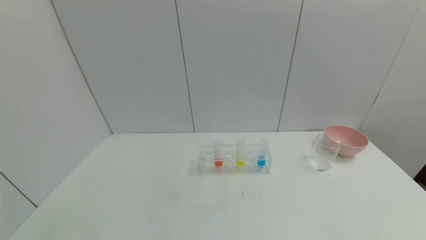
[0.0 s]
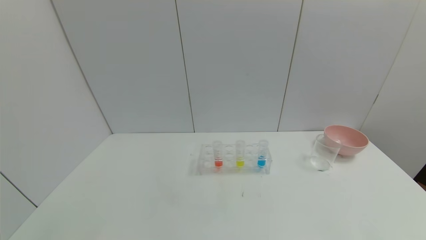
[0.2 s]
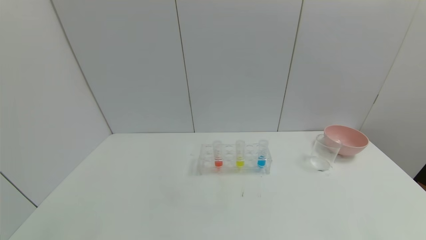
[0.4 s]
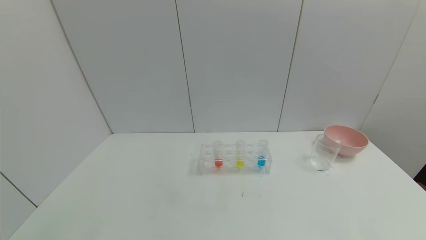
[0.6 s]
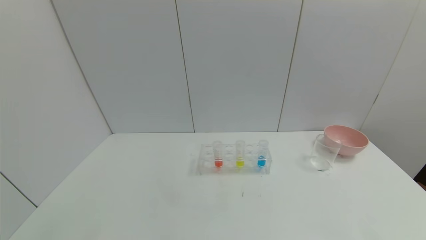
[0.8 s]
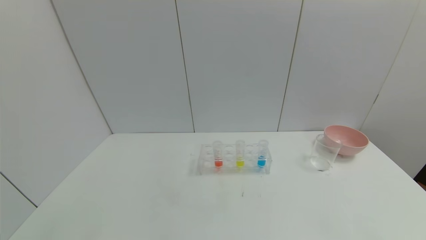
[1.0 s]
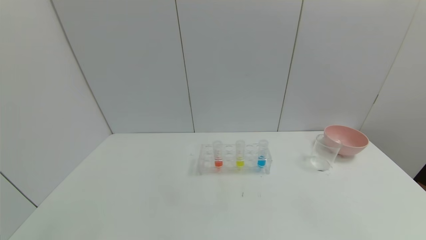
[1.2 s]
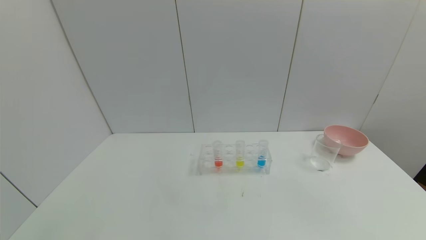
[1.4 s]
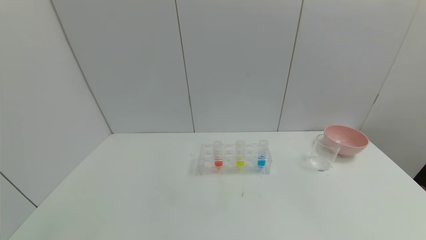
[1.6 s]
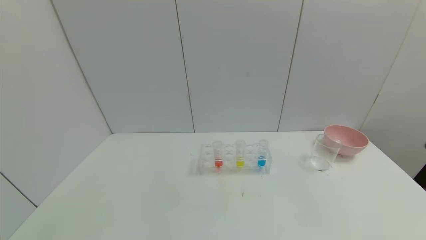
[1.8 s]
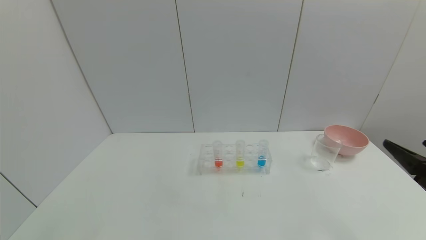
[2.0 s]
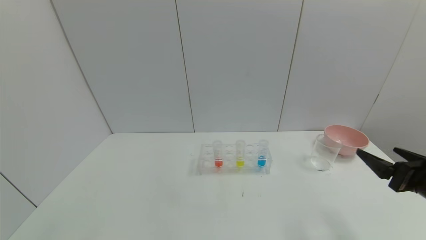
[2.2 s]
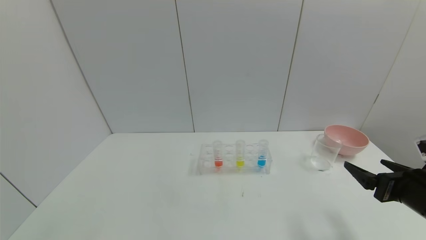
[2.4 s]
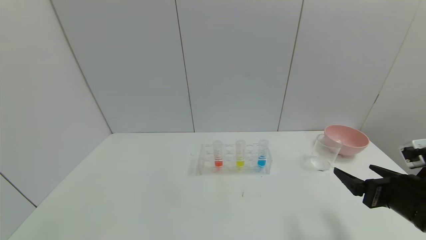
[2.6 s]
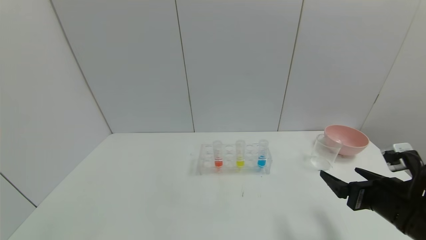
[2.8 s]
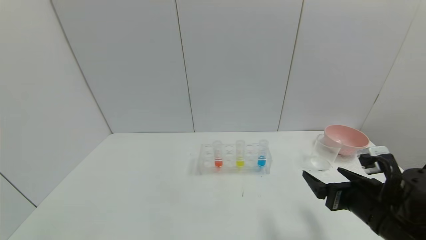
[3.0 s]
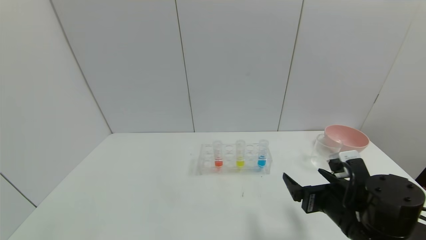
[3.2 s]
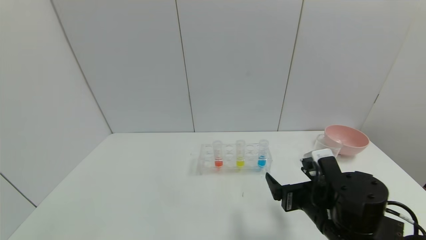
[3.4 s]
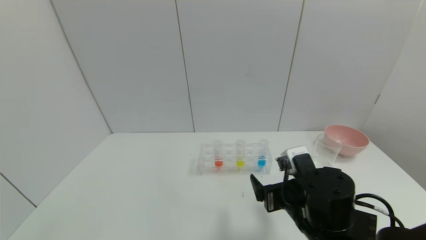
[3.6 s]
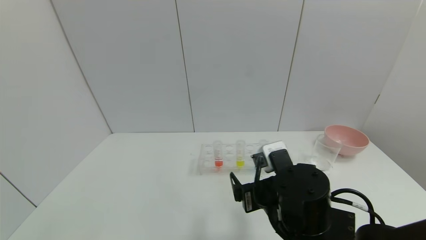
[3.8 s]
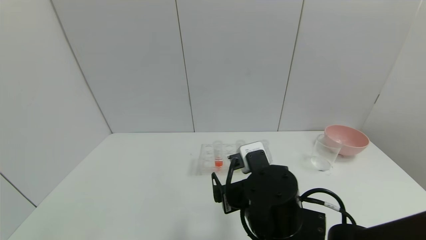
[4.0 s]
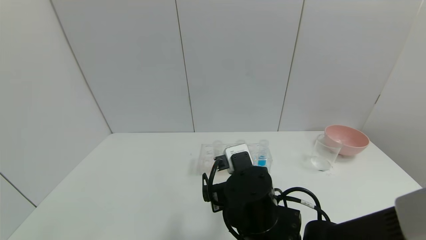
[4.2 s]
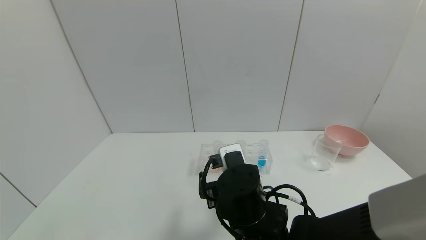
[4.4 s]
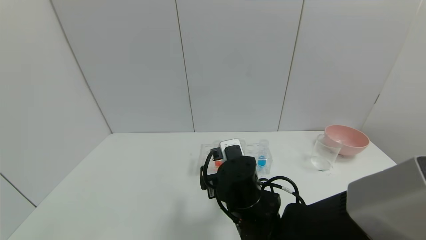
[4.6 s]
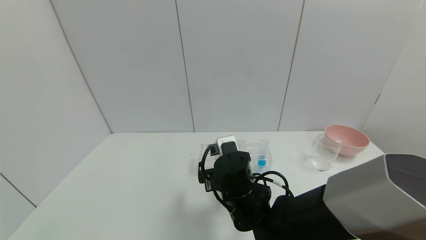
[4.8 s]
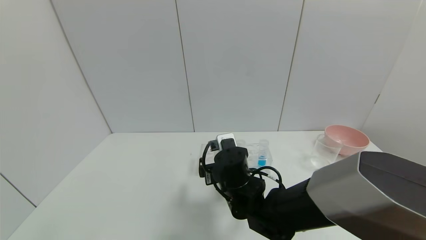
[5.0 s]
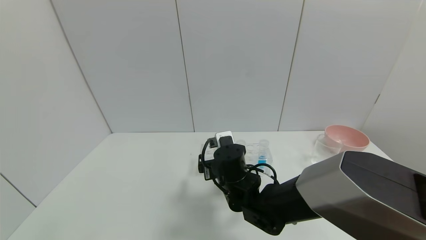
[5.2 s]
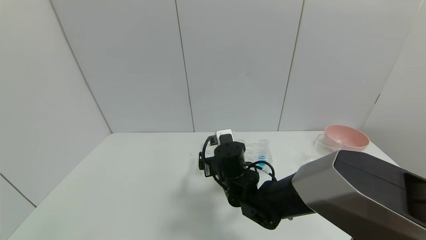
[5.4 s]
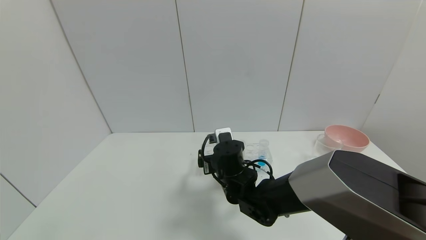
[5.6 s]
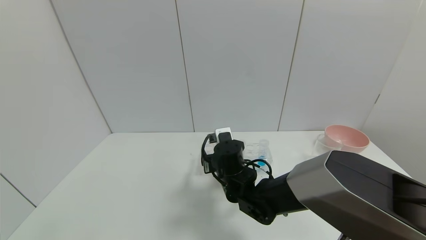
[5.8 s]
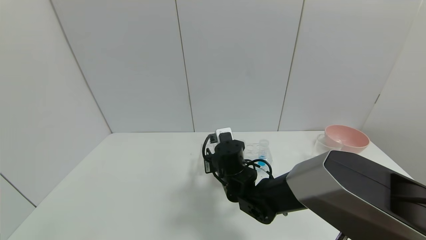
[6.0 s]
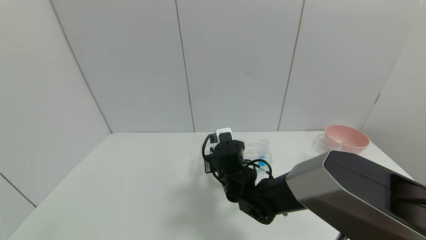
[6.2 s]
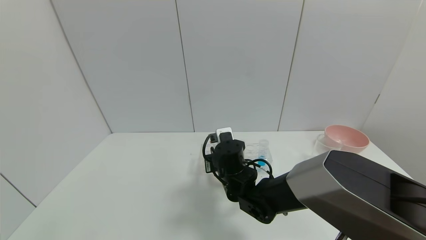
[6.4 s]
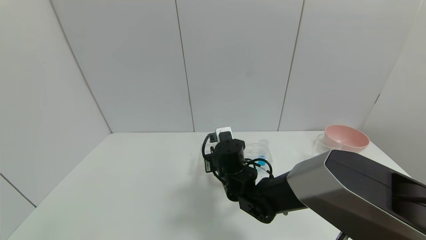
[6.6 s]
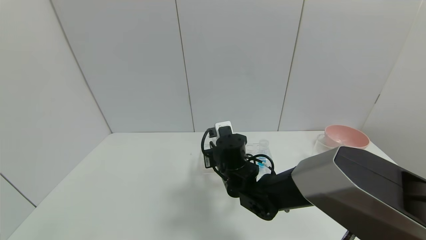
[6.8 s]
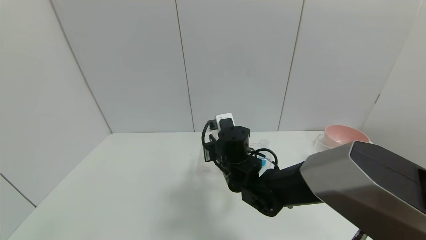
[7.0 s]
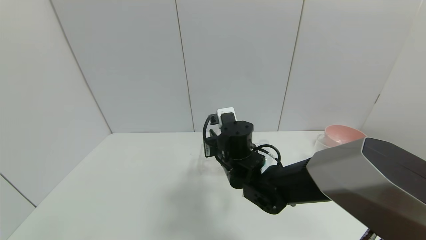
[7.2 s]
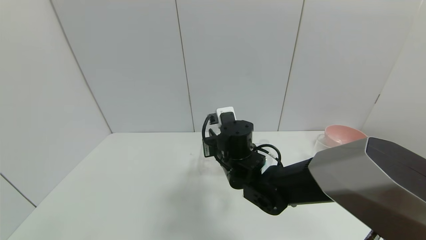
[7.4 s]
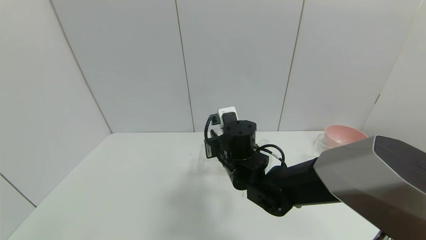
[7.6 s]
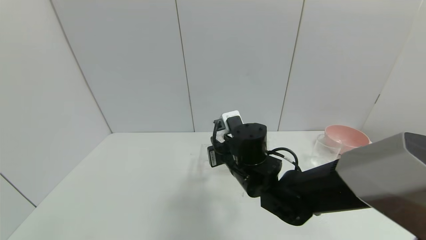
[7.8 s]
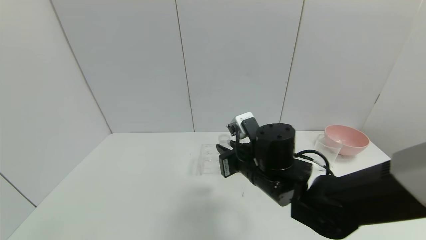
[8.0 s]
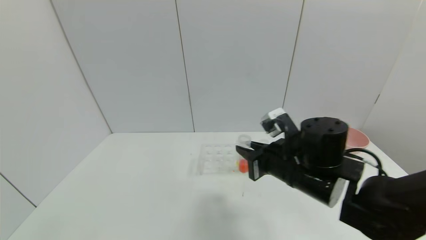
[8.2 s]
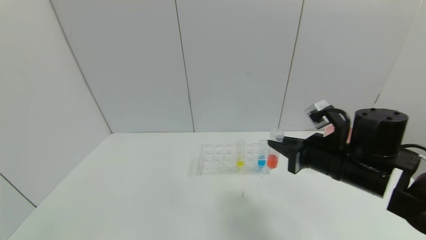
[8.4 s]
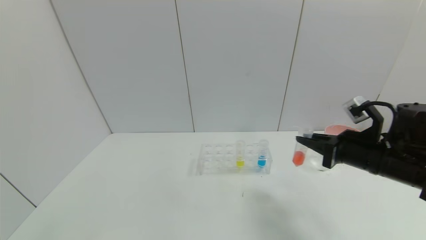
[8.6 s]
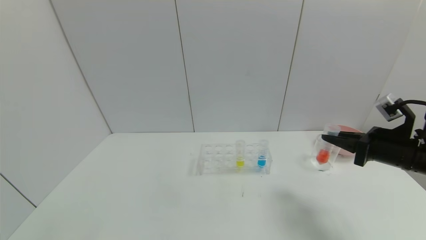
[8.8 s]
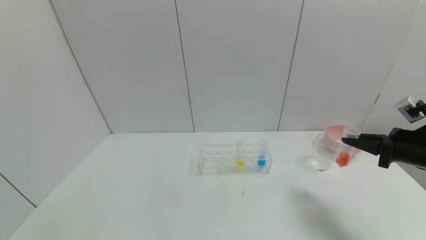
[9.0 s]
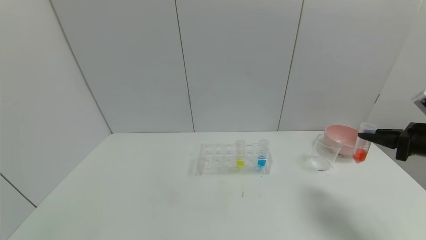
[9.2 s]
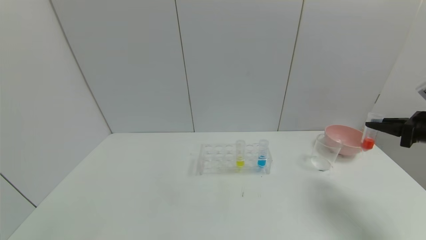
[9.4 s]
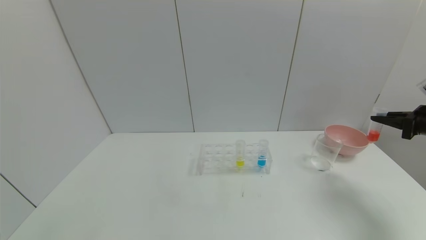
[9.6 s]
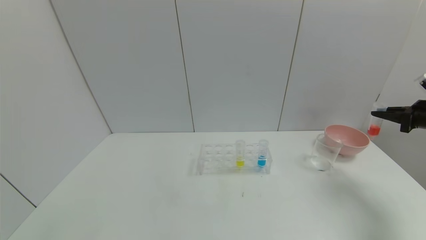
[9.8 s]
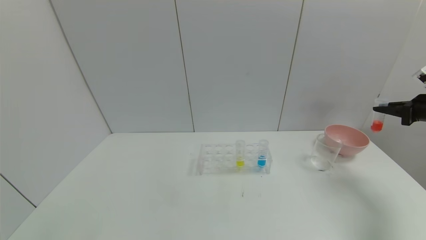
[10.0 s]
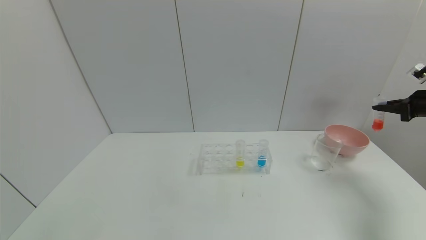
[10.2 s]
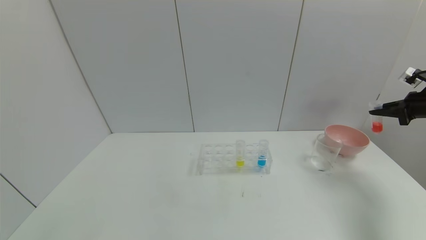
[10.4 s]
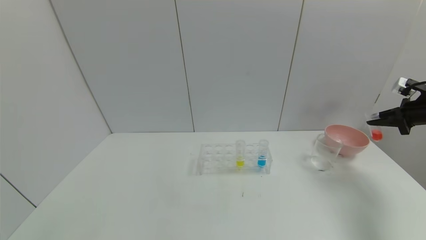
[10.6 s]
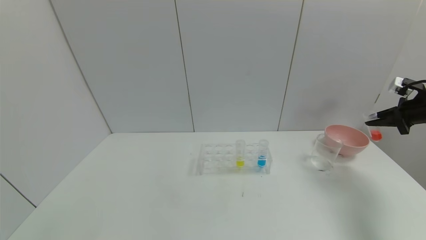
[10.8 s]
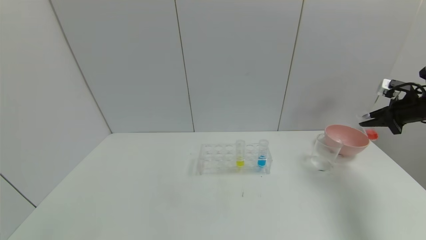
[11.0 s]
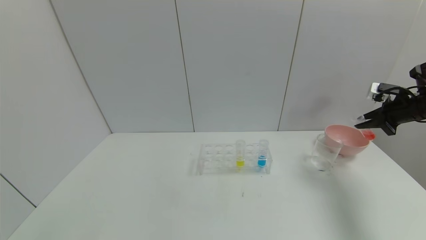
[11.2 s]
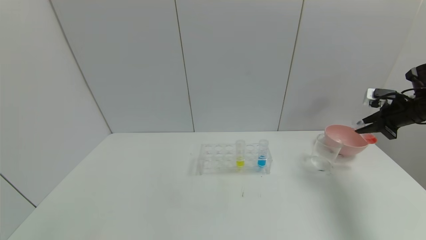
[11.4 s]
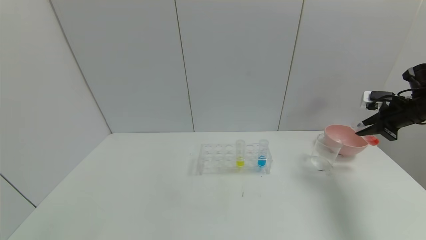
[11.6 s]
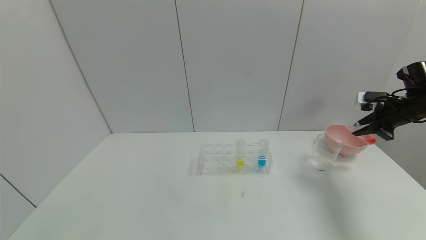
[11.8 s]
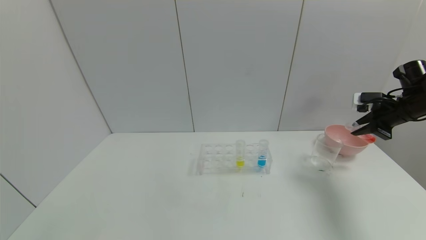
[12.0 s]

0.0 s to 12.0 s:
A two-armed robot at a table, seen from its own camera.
Task of the whole recording: pick up the test tube with red pigment and the test tube with blue pigment by grippers and pour them into the container.
Step, 0.0 to 6.4 s: Grasp the red reagent with the right gripper.
1.6 to 3.0 s: The right gripper heads forward, to the left and downward, covering approximately 20 cm.
3.0 to 4.4 s: The right gripper travels to the left by some 20 cm.
4.4 to 6.0 s: The right gripper goes some 10 cm forward, and closes its fingers.
6.0 to 7.6 s: The right gripper travels upward by some 5 cm, and closes.
7.6 to 9.0 s: The right gripper moves to the right, about 35 cm.
9.0 to 10.4 s: The right gripper moves to the right and forward, roughly 15 cm.
10.4 to 12.0 s: The right gripper heads to the left, covering about 10 cm.

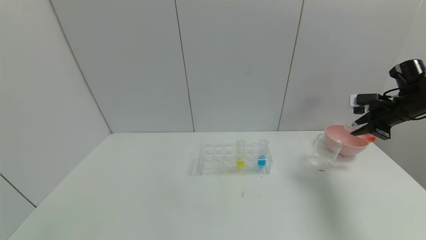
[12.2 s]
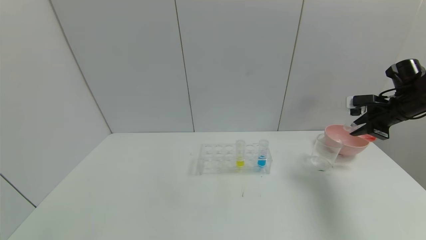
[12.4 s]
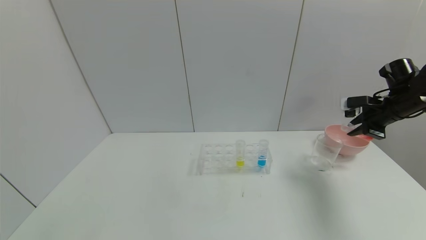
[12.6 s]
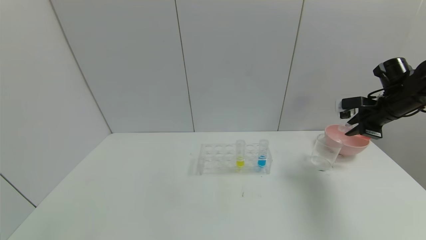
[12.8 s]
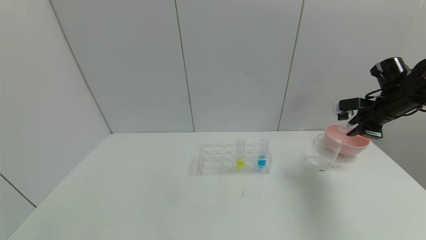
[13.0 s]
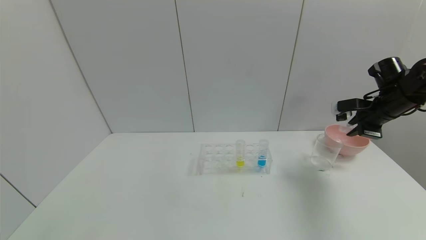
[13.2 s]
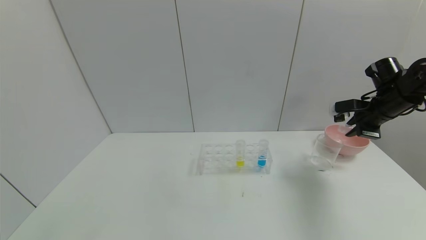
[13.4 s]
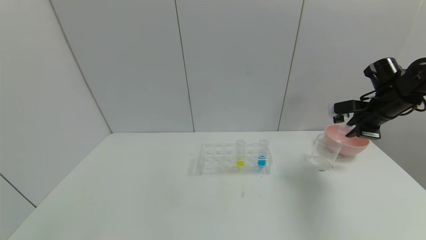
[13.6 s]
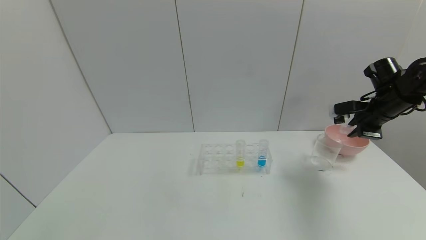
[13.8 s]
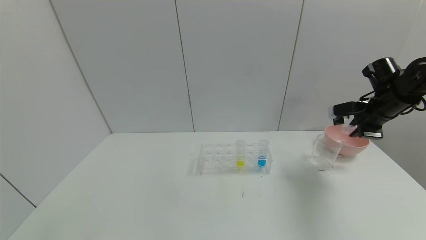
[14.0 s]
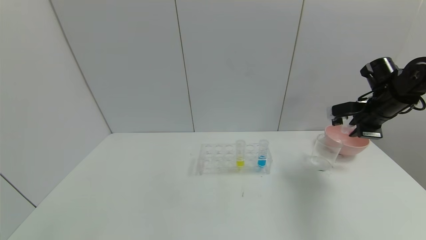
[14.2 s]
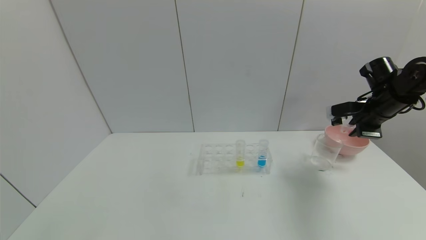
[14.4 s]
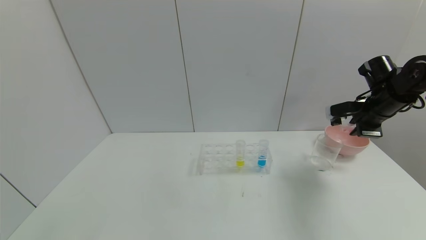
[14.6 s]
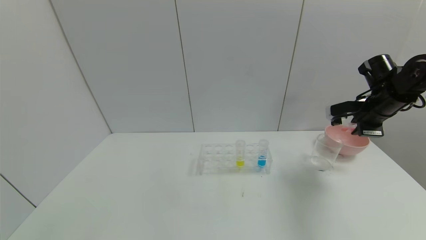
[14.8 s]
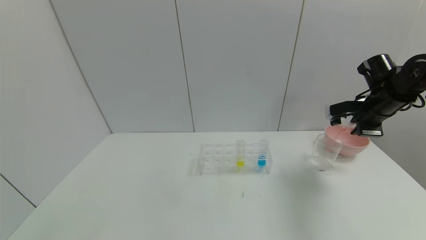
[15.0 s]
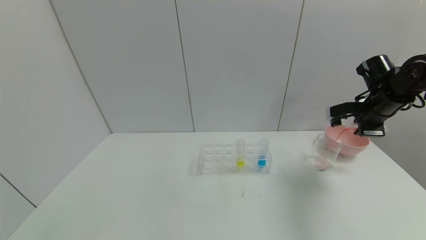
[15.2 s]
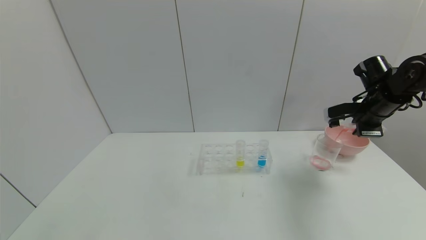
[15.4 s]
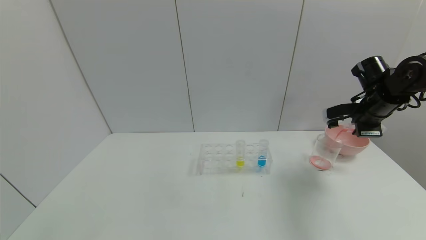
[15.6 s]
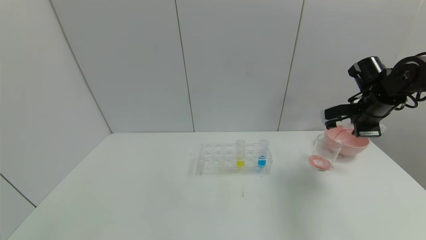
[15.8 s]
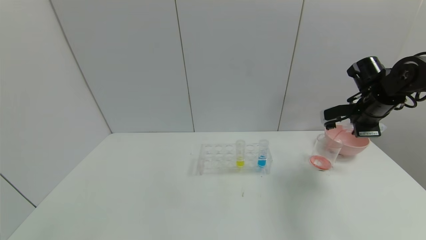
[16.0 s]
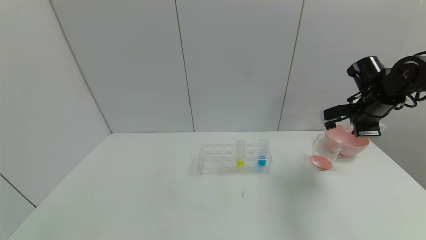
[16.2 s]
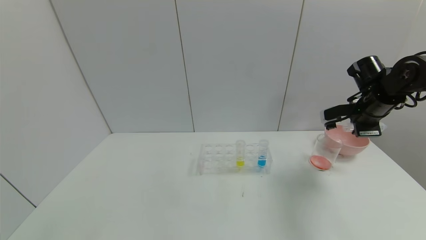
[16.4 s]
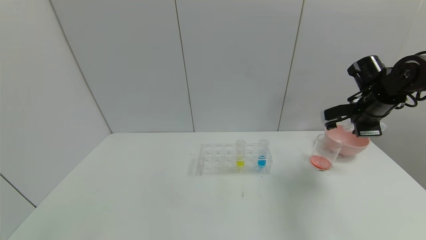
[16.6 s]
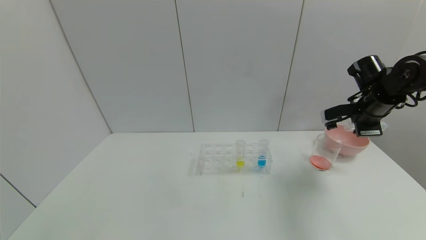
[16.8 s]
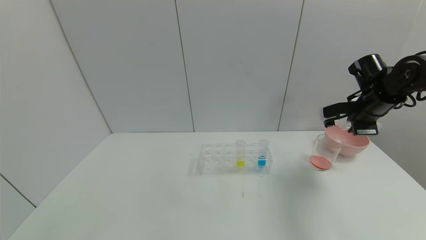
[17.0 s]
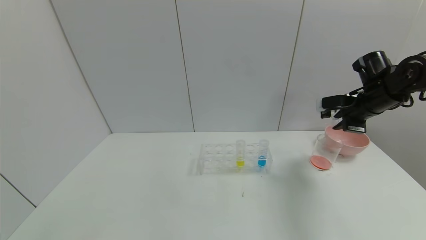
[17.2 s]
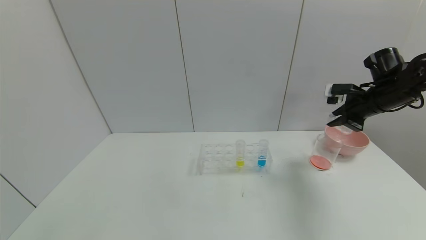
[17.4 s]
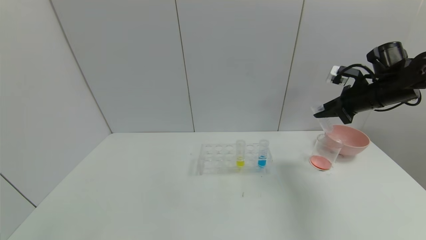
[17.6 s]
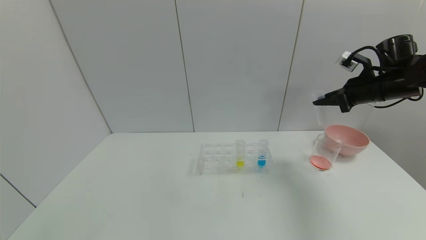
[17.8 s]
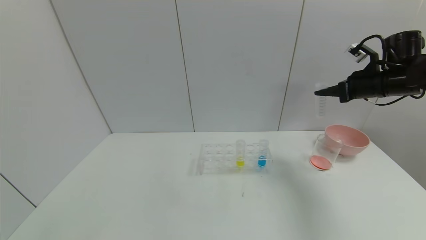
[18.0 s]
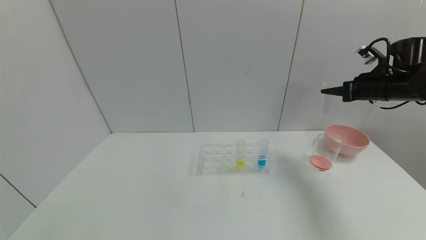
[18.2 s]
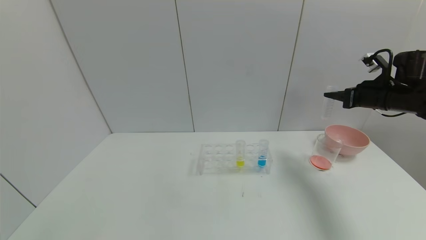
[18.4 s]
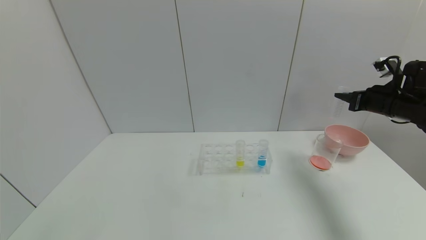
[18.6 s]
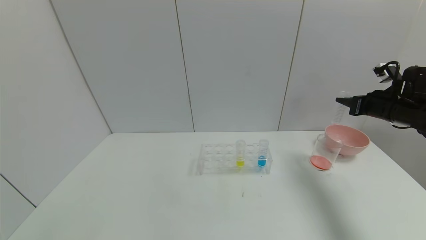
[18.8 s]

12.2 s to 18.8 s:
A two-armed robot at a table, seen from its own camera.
Task of the whole recording: pick up the test tube with red pigment and the test tube with blue pigment by grippers and pour them into the container.
Step, 12.2 to 16.6 s: Pour the red reagent into the graduated cylinder with the right gripper.
12.2 to 13.8 s: The right gripper goes about 5 cm to the left.
13.8 to 17.2 s: There are only small adjustments of the grippers.
17.2 to 18.8 s: The right gripper shifts some 5 cm to the right.
